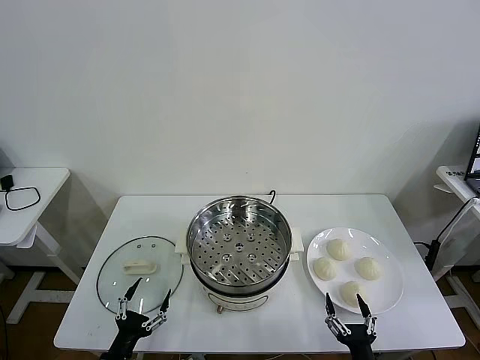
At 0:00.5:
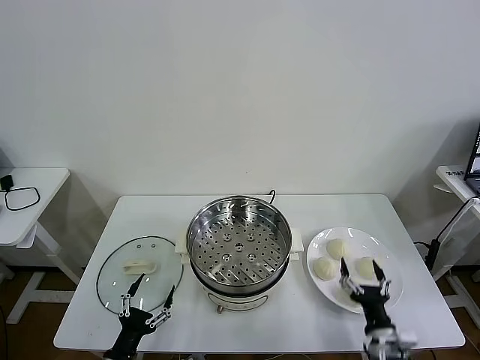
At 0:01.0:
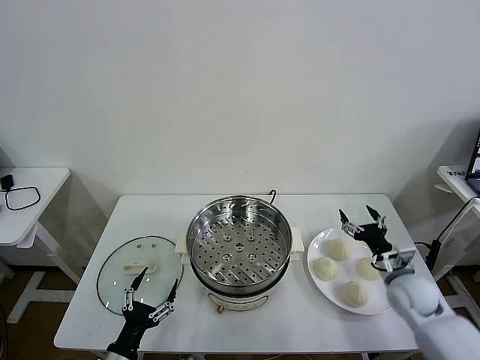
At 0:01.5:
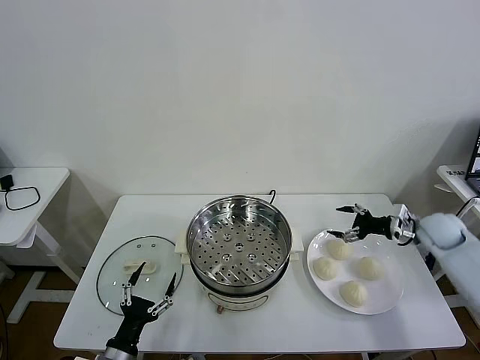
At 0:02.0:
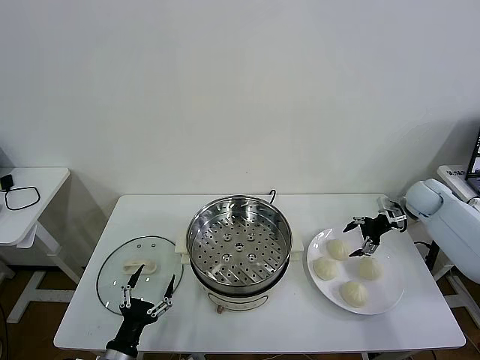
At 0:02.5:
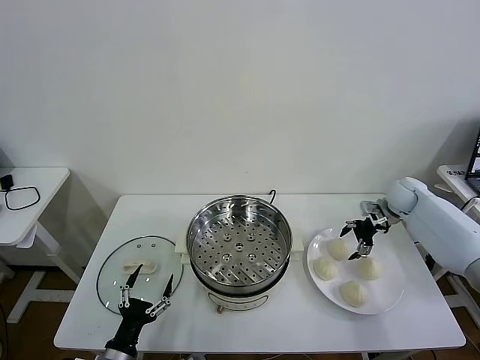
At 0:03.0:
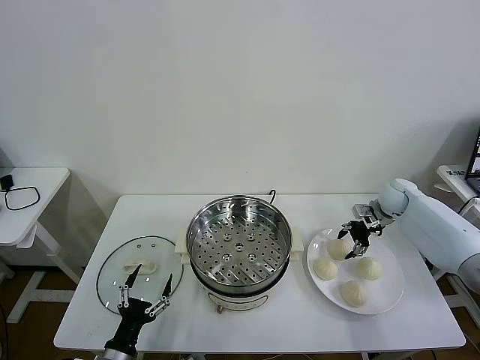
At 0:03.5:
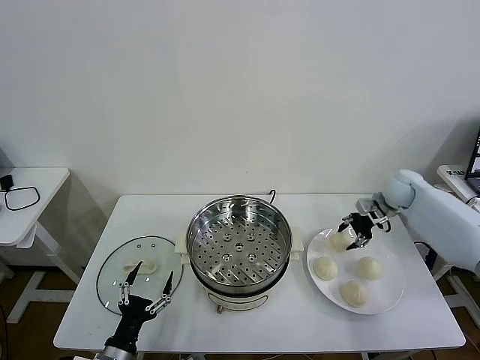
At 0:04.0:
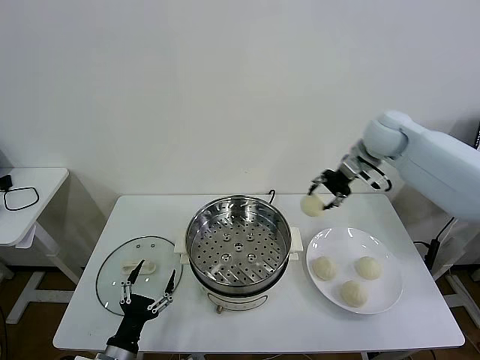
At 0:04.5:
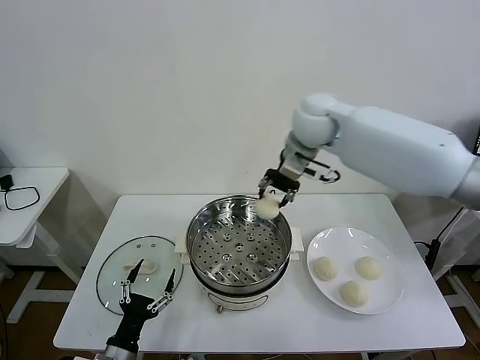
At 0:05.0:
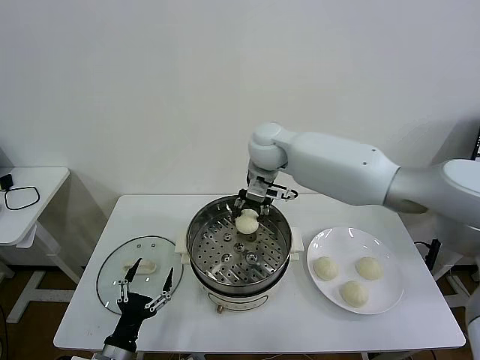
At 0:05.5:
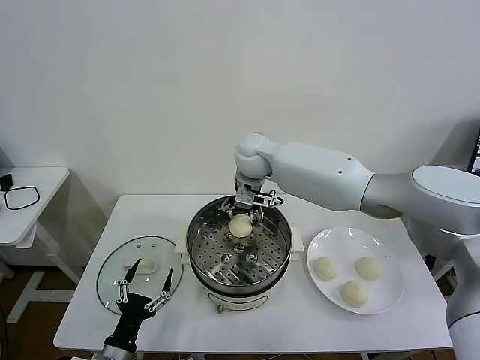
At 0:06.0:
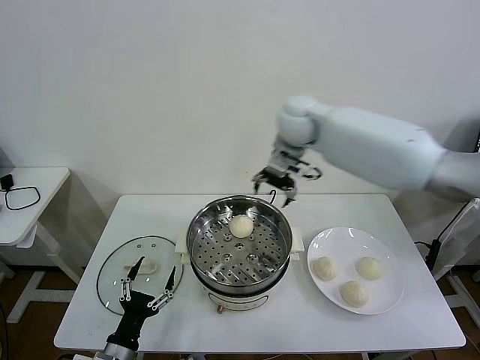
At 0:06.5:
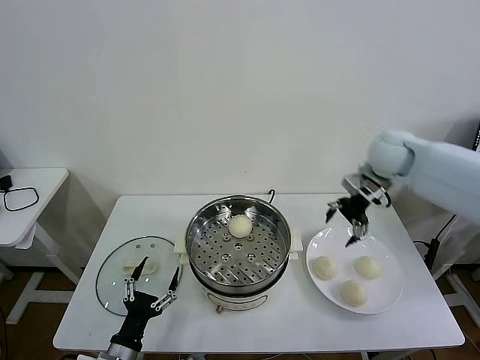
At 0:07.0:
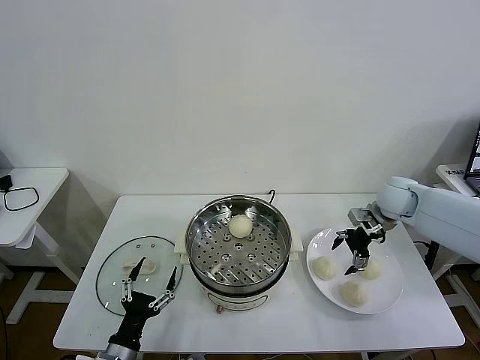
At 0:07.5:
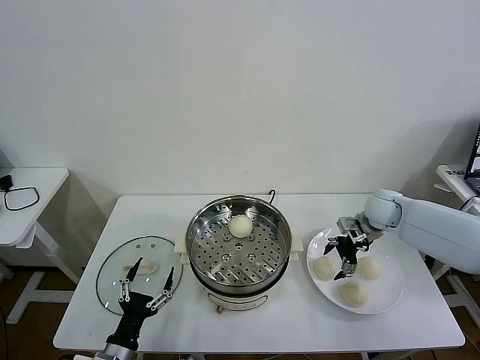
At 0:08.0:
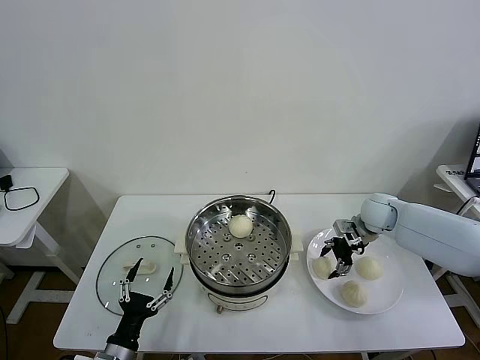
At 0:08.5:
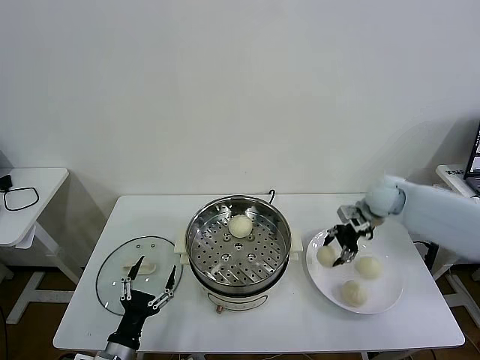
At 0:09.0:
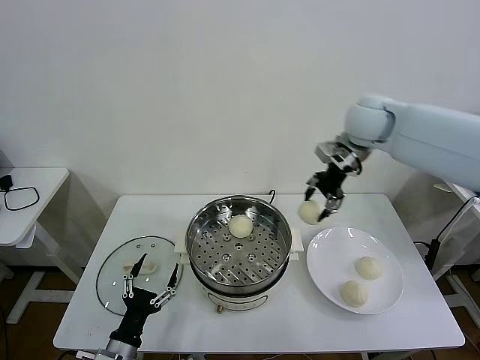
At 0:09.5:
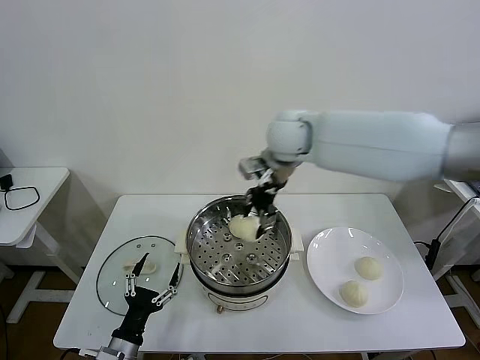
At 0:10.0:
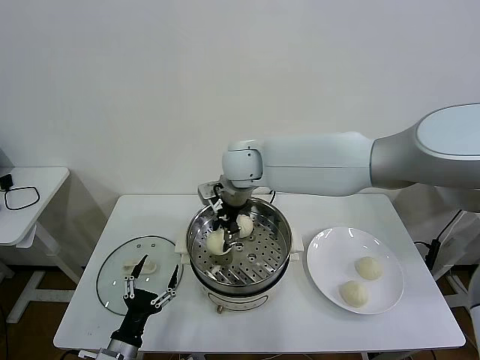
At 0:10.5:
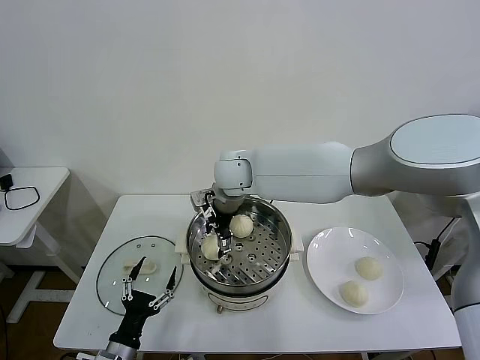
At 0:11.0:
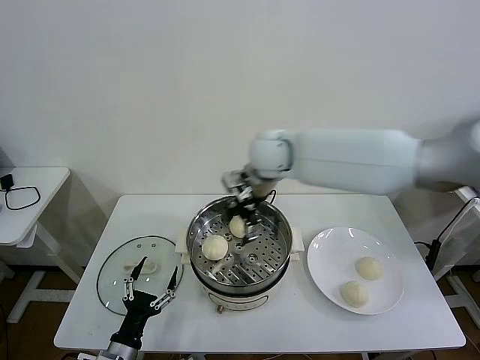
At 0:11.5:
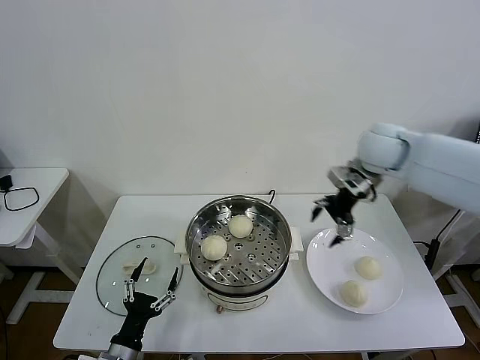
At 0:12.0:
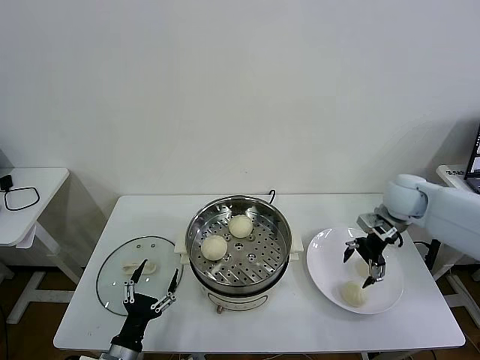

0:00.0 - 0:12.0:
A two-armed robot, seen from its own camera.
Task of the whole recording: take steamed baozi put them in steamer then cover it.
Step, 0:00.0 - 0:03.0: Grasp the baozi in the plate with right gripper.
Step, 0:03.5 - 0:05.5: Place the baozi on the steamer with right gripper.
Step, 0:06.0 - 0:08.0: Grasp the baozi in the plate with right gripper.
Step, 0:08.5 - 0:10.5: Place the baozi on the steamer with right gripper.
0:02.0 - 0:04.0: The right gripper moves upward and to the left, approximately 30 cm, and closes.
0:04.0 - 0:06.0: The right gripper goes approximately 10 cm to the left, and opens.
0:06.0 - 0:08.0: The right gripper goes approximately 30 cm downward and to the right, and closes up.
0:08.0 - 0:10.0: The right gripper shifts about 40 cm to the left and upward.
0:10.0 - 0:12.0: The right gripper is displaced to the right by approximately 40 cm, and opens.

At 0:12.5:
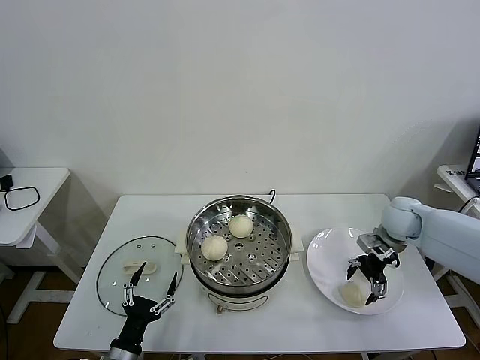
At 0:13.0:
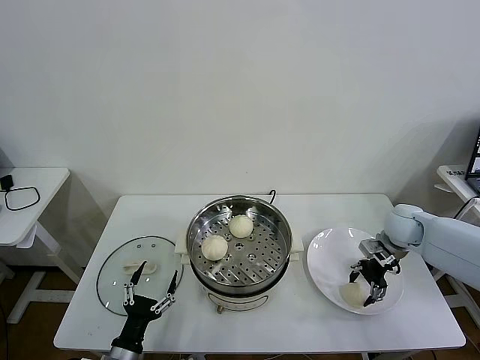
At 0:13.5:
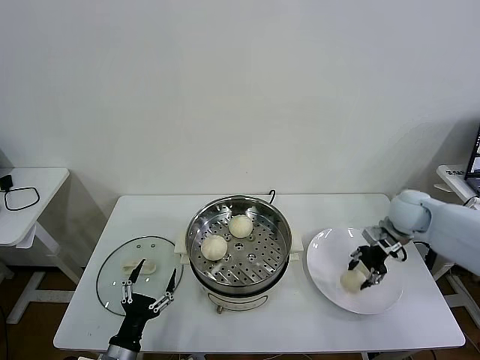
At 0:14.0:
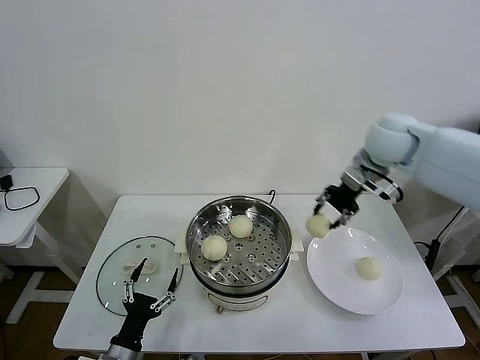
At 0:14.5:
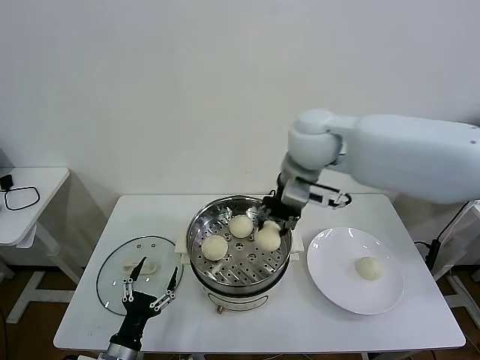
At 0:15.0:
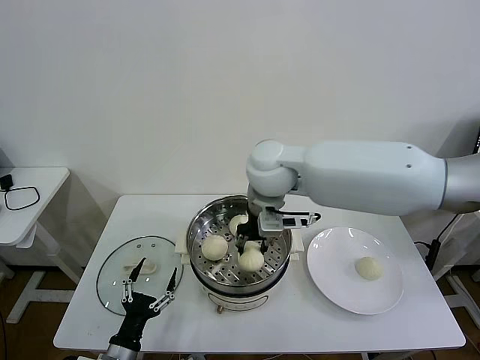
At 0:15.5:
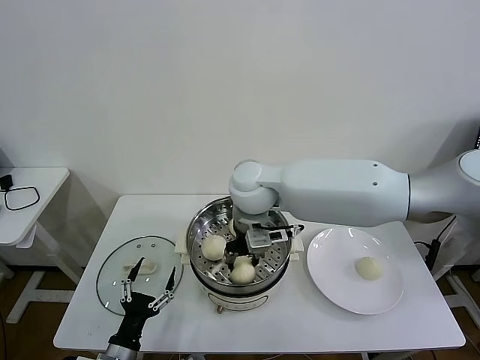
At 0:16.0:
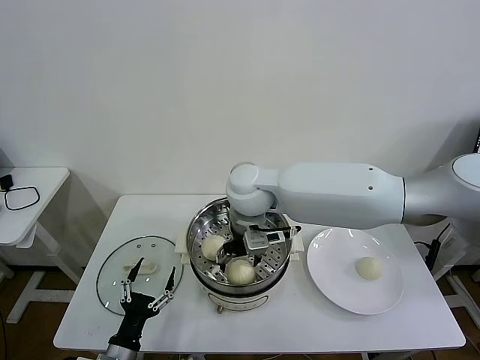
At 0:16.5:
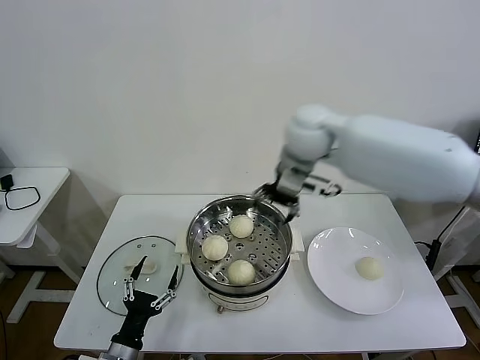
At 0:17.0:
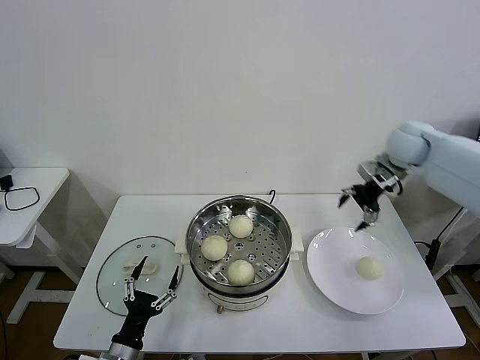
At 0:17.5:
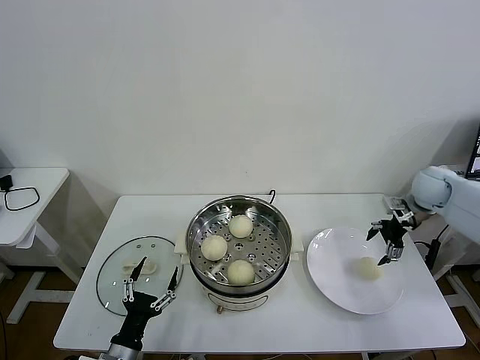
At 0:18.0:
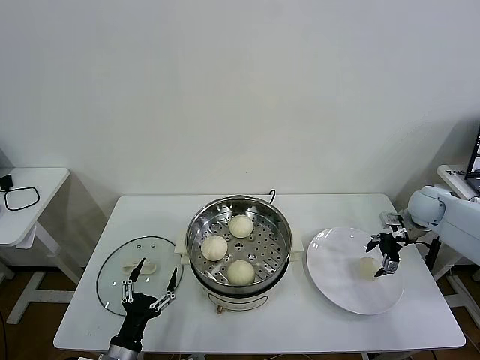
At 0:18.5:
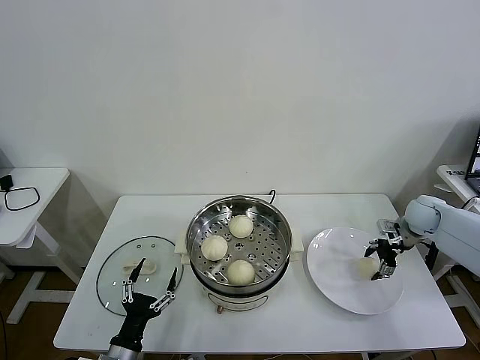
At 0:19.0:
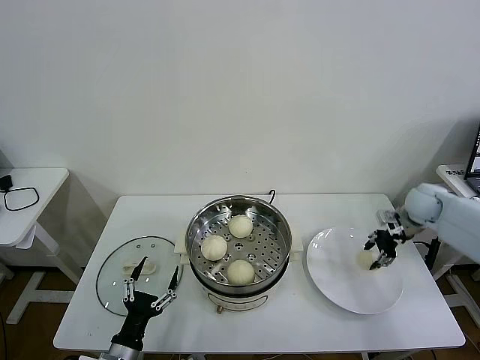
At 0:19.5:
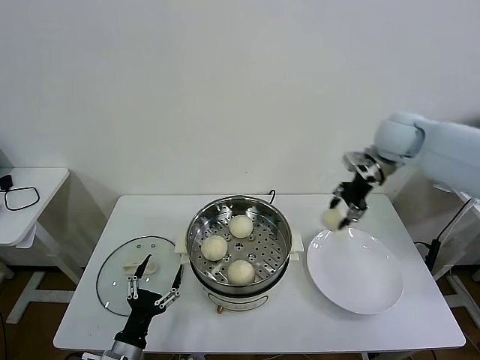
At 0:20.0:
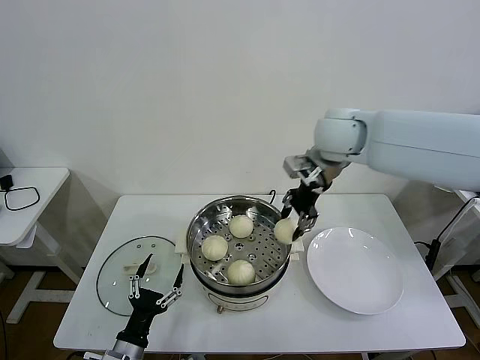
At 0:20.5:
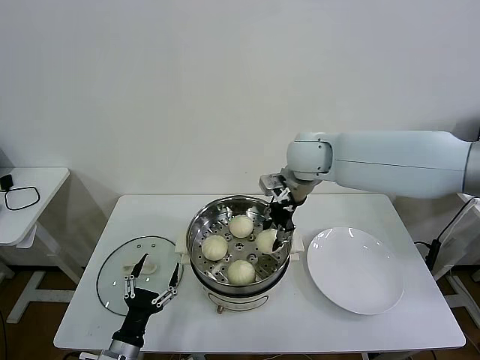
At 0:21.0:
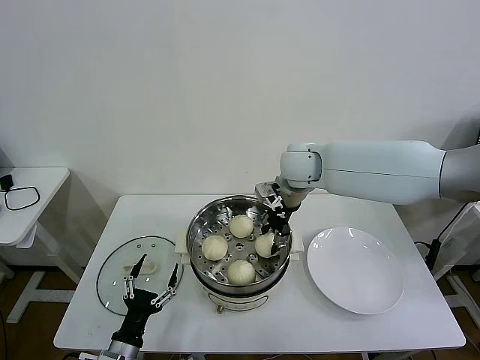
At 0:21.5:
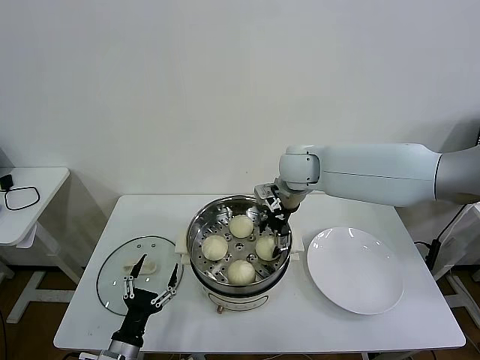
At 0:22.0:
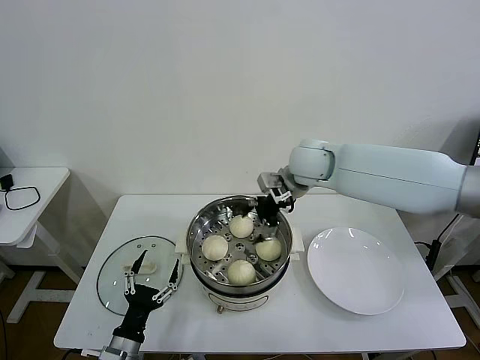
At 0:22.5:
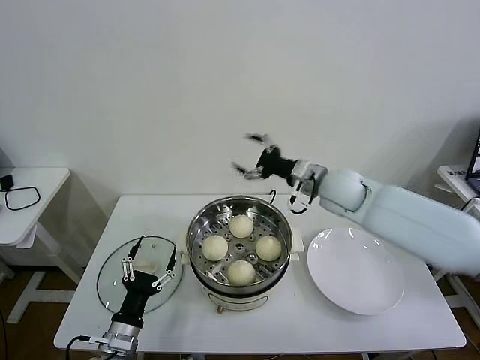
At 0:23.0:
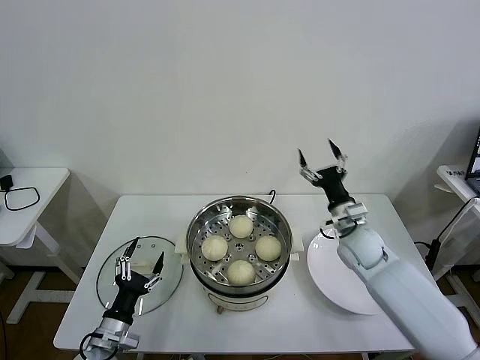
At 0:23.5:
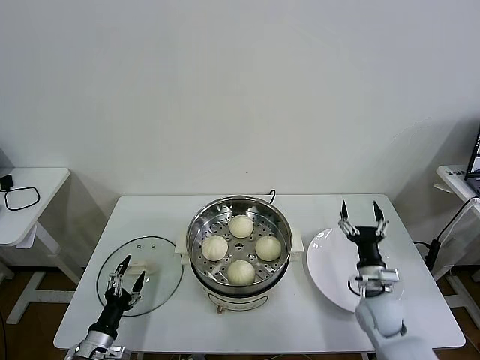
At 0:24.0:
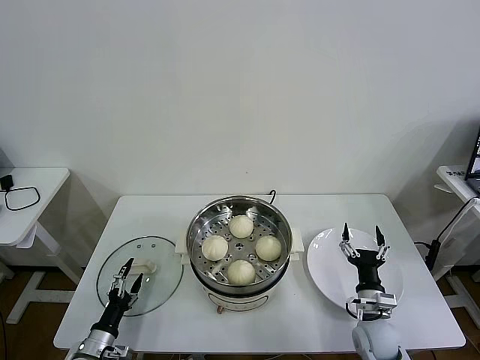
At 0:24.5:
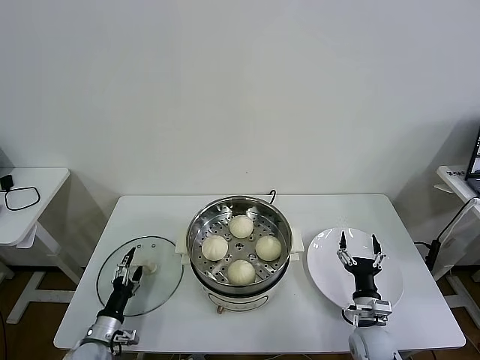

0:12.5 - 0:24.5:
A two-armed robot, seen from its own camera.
Task of the whole recording: take steamed baozi put them in steamer then cover it.
Step, 0:13.5 - 0:15.5: Place the baozi on the steamer with right gripper.
Step, 0:16.0 - 0:18.5: Grasp the baozi in the plate with right gripper.
Step, 0:19.0 - 0:21.5: Place the baozi on the steamer with right gripper.
0:12.5 - 0:14.5: The right gripper travels to the left and upward by some 35 cm, and closes up.
0:14.5 - 0:16.5: The right gripper travels to the left and back again, some 10 cm each way, and opens.
0:16.5 - 0:18.5: The right gripper moves to the right and downward, roughly 40 cm.
0:18.5 - 0:20.5: The right gripper travels to the left and upward by about 40 cm, and closes.
0:20.5 - 0:22.5: The right gripper heads to the right and downward, covering approximately 10 cm, and opens its fingers.
0:22.5 - 0:24.5: The left gripper heads downward and to the left, covering some 15 cm. The right gripper goes some 35 cm downward and backward.

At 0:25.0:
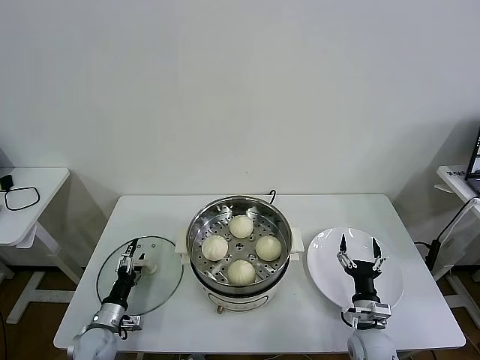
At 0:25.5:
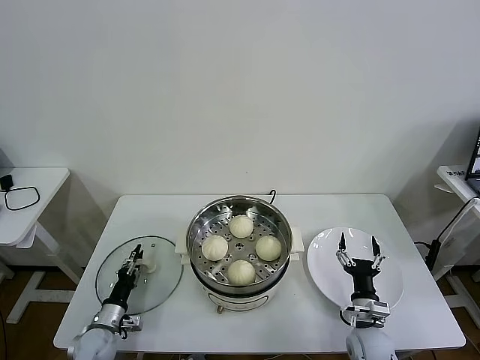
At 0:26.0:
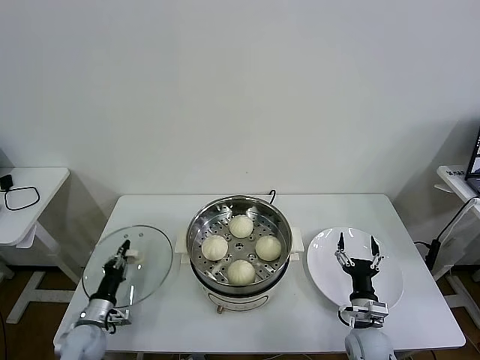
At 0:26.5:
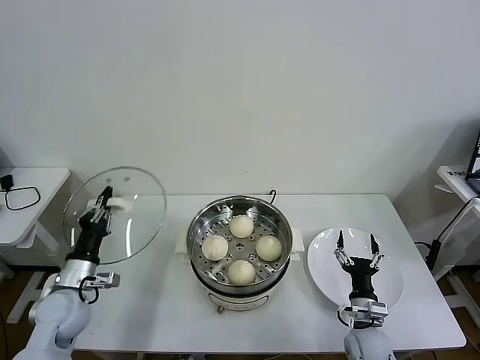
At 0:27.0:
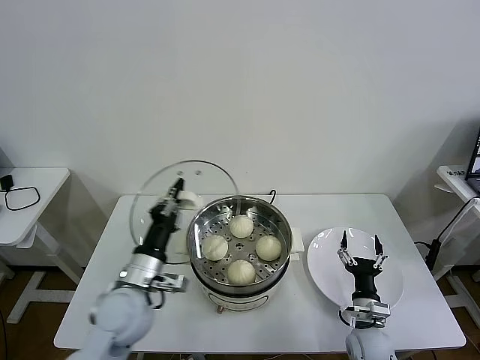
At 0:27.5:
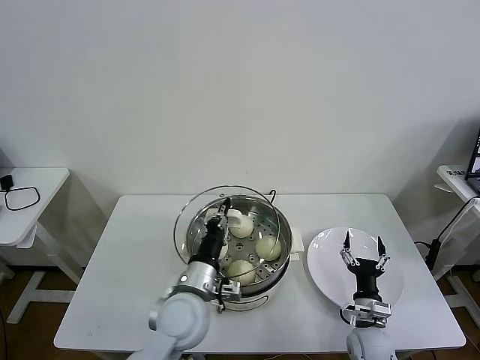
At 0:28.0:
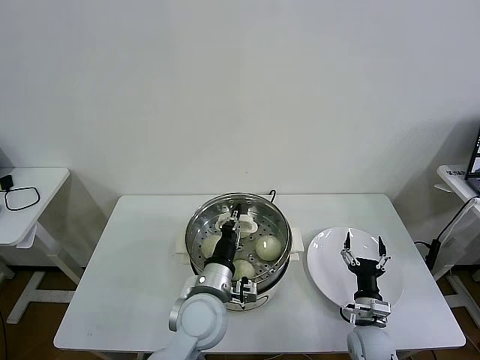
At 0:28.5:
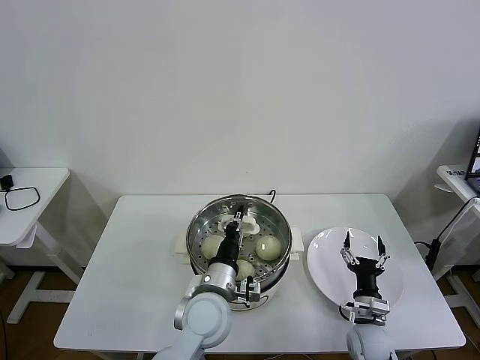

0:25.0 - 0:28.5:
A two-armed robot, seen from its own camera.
Task of the whole recording: take steamed baozi put them in steamer then cover it.
0:25.0 - 0:27.0: The left gripper heads upward and to the right, covering some 25 cm, and closes.
0:27.0 - 0:28.5: The left gripper travels to the right by approximately 15 cm.
